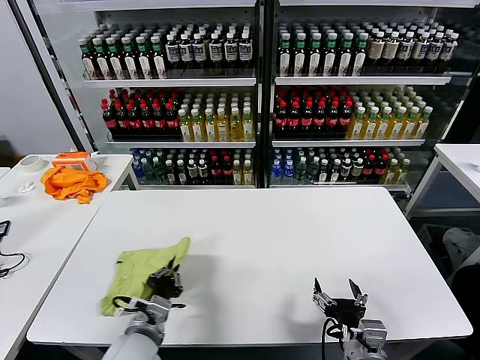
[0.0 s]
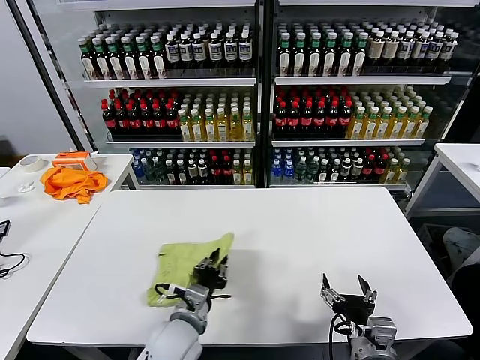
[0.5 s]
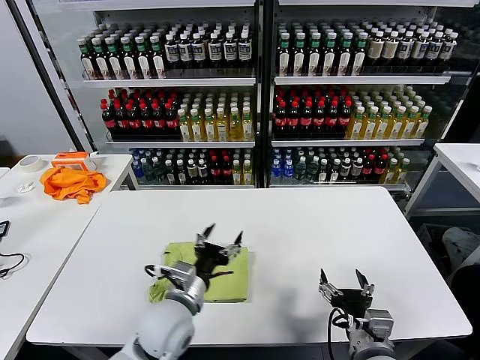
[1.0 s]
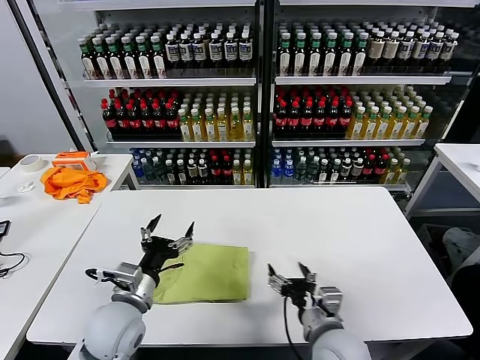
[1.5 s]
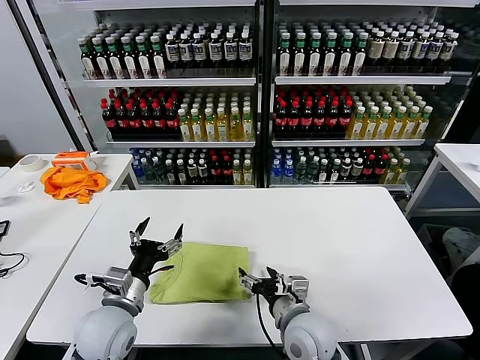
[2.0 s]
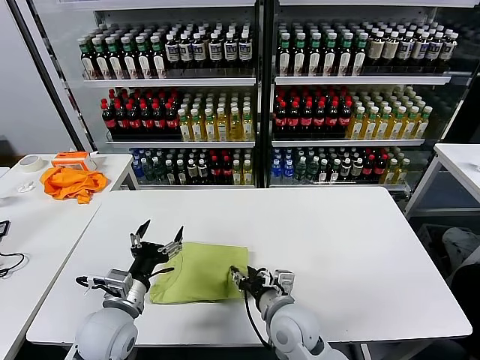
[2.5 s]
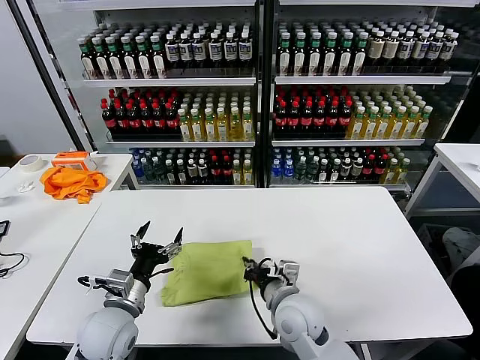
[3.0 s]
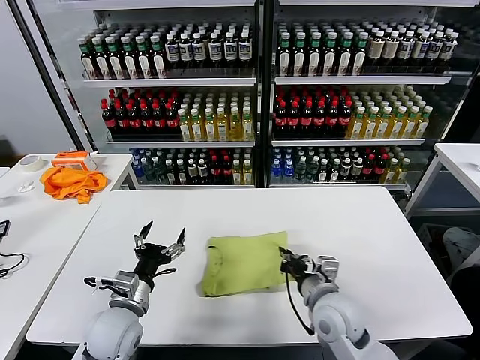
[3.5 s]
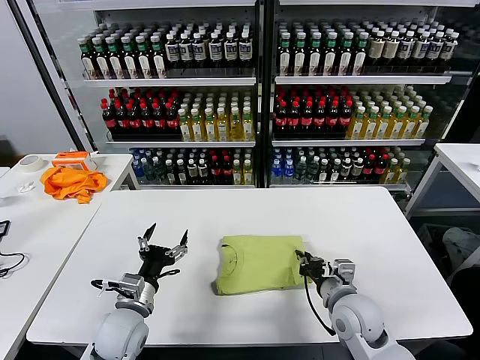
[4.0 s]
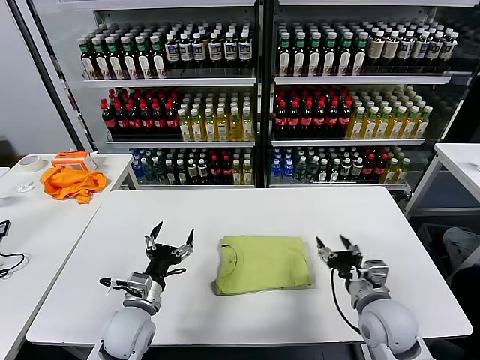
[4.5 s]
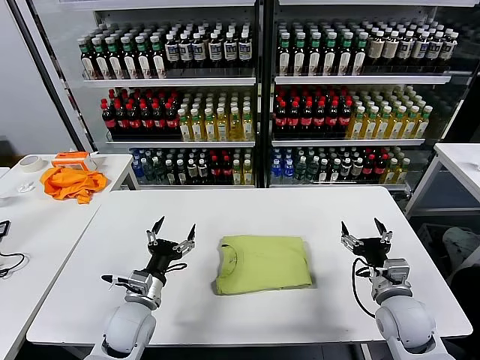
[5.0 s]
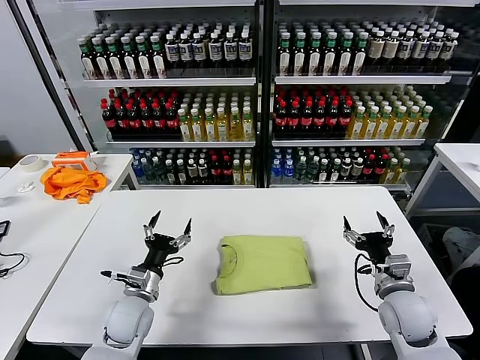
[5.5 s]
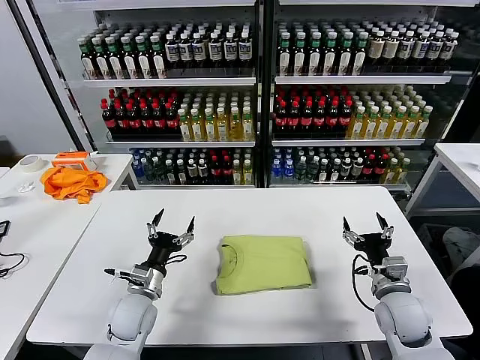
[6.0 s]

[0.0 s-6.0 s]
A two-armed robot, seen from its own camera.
Task of the whole recording: fold and organize the clothes.
Step, 1.0 to 4.0 s: Drag the clothes to the center of the table.
0.0 to 2.0 s: The left gripper moves about 10 cm to the right and comes back, and opens up; the right gripper shifts about 15 cm forward and to the left.
2.0 to 4.0 s: The left gripper moves approximately 5 cm. The right gripper travels to the right by some 10 cm, and closes its fingers.
4.0 to 6.0 s: The right gripper heads to the right, covering about 10 cm, and opens up. The left gripper moves roughly 5 cm.

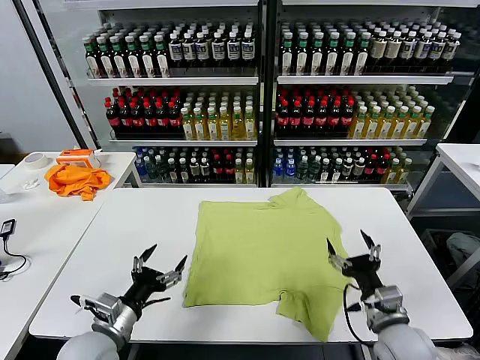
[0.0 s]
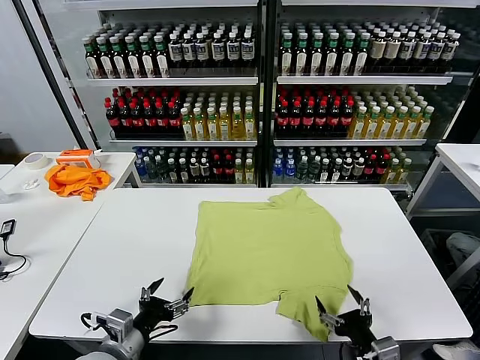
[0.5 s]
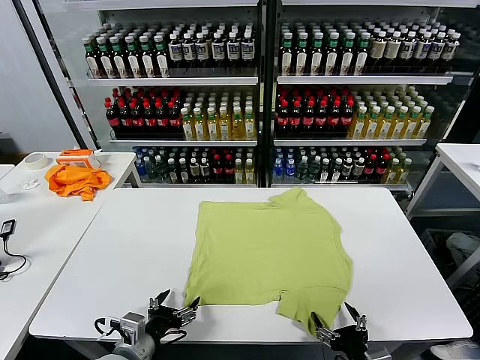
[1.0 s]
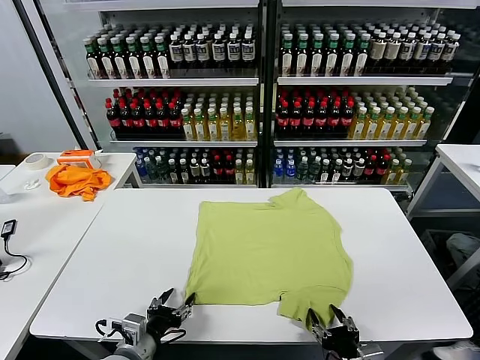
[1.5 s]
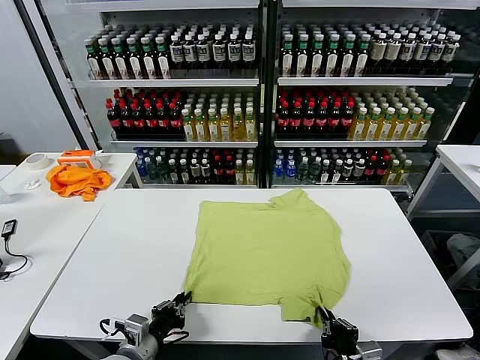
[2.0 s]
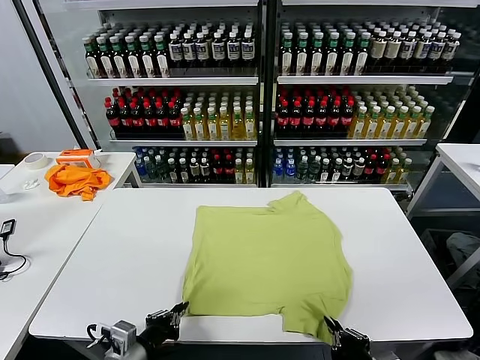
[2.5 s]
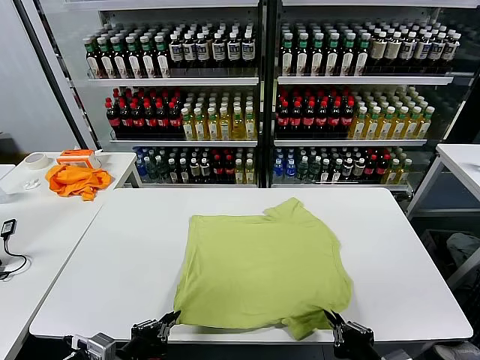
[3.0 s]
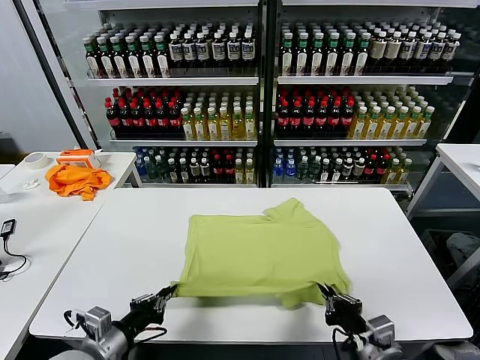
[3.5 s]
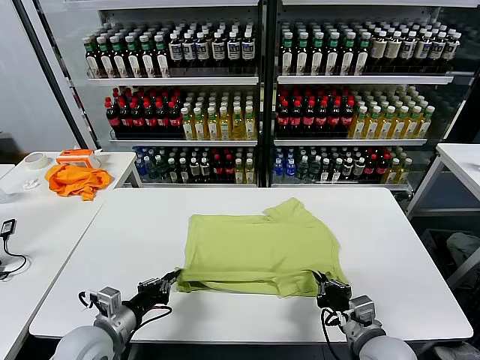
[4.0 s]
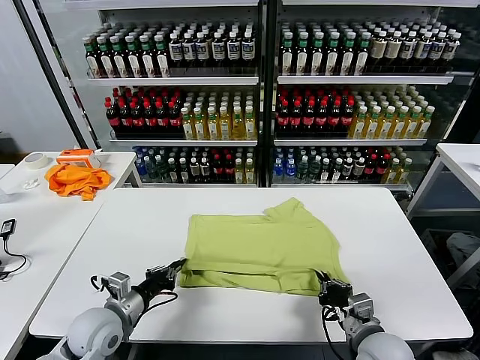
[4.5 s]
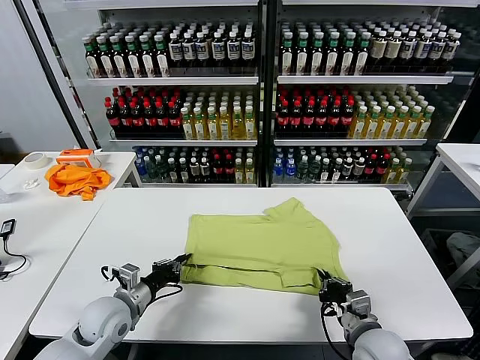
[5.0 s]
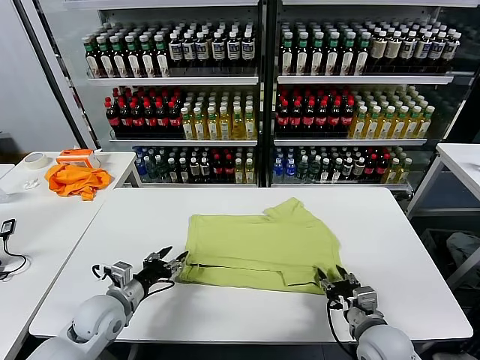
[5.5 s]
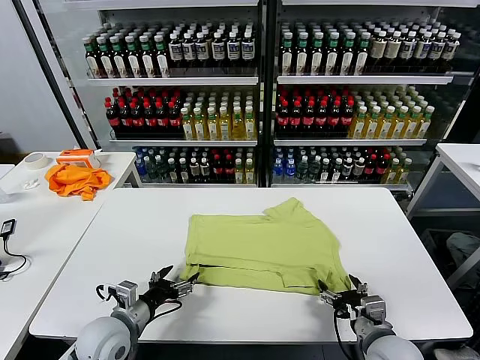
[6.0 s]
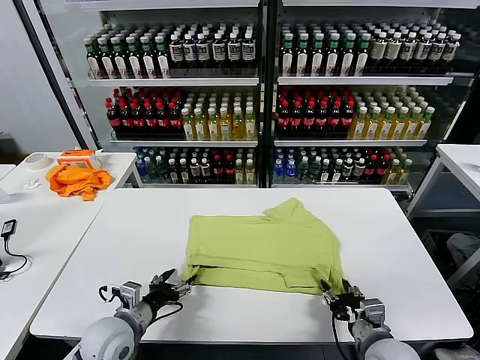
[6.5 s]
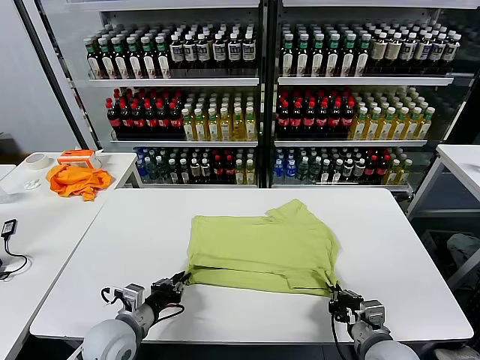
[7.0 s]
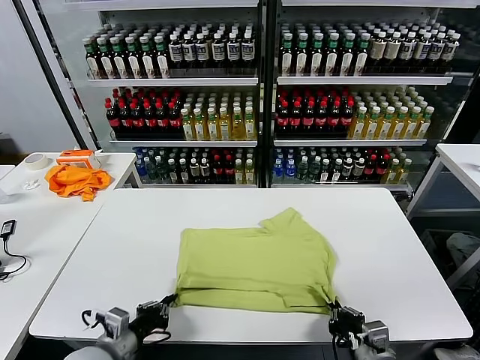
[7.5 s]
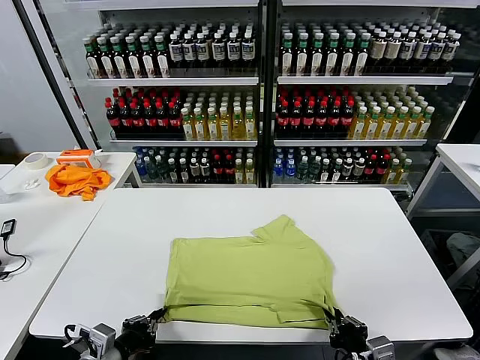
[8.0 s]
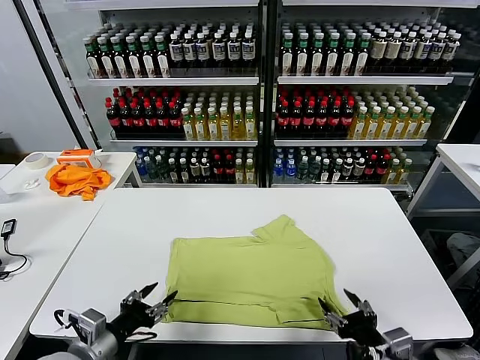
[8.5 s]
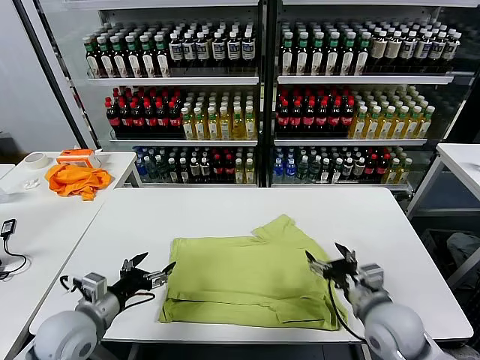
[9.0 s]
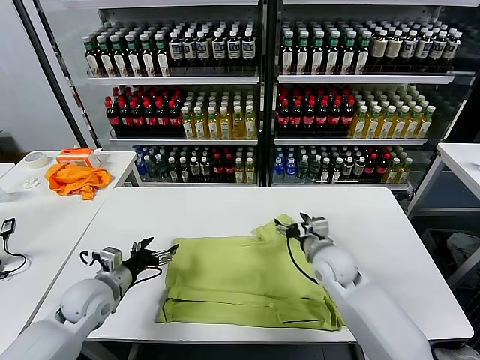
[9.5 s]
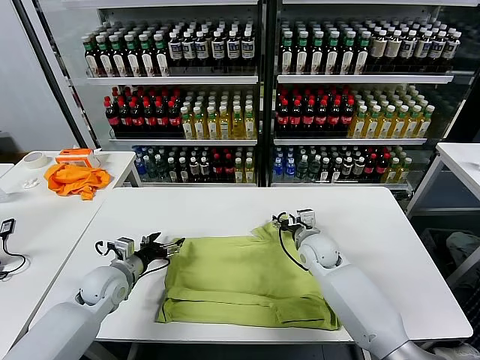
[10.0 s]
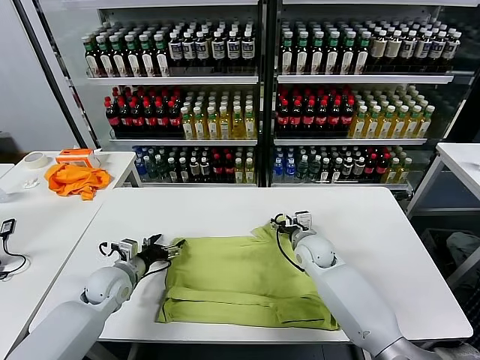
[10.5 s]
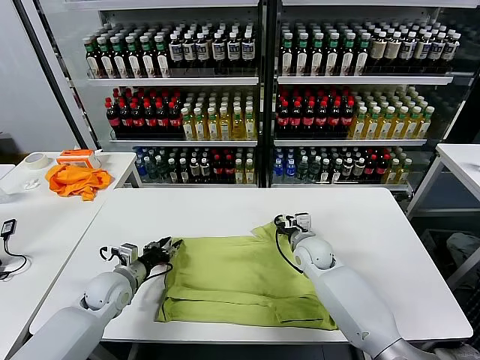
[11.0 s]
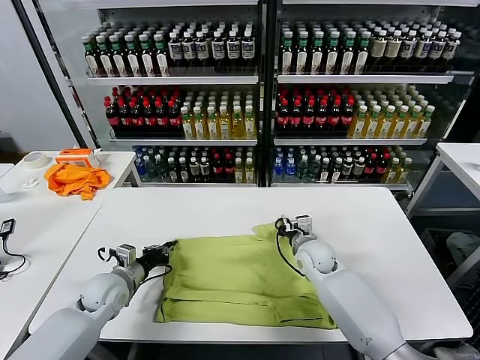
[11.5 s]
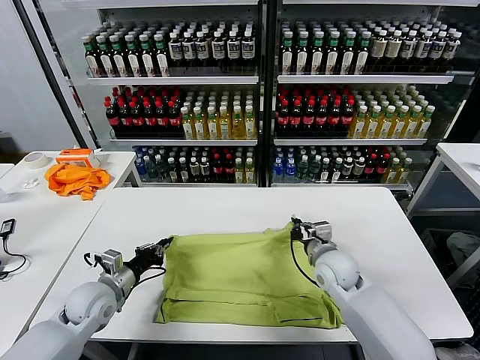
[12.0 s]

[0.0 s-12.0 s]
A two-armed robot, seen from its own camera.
Task of the whole recording: fold and organize the clothes.
Step, 0.0 to 2.0 s: use both grippers simultaneously to clamp the lower edge of the clothing fabric.
Step, 2.5 to 5.5 s: use both grippers to drag the lower edge of the fabric forward and fold it over the upper edge.
Step, 6.0 to 8.0 s: Drag the clothes downward with both gripper.
Step, 8.5 to 11.0 s: use both grippers simultaneously to clamp the upper edge of the clothing fabric.
2.0 to 4.0 s: The right gripper travels forward by approximately 10 cm. The left gripper heads to the left and forward, covering approximately 5 cm.
4.0 to 6.0 s: The right gripper opens up. The left gripper opens.
6.0 to 8.0 s: The grippers both shift backward by approximately 10 cm. The left gripper closes. The right gripper closes its fingers.
8.0 to 10.0 s: The right gripper moves forward, approximately 35 cm, and opens. Meanwhile the left gripper goes about 20 cm forward, and opens up.
10.0 to 12.0 s: The left gripper travels backward by roughly 5 cm, and closes, while the right gripper moves backward, approximately 10 cm, and closes its fingers.

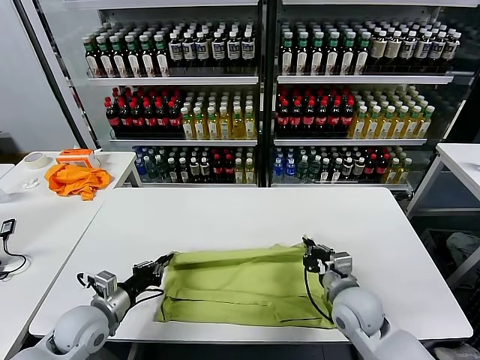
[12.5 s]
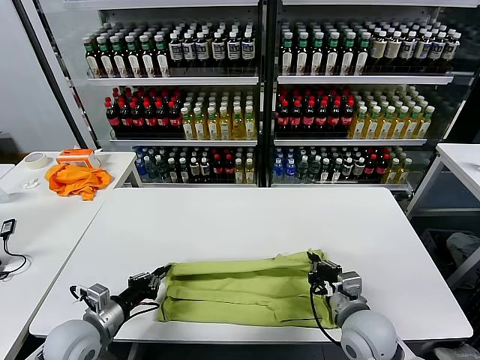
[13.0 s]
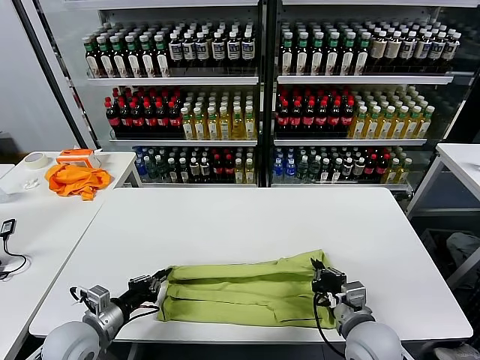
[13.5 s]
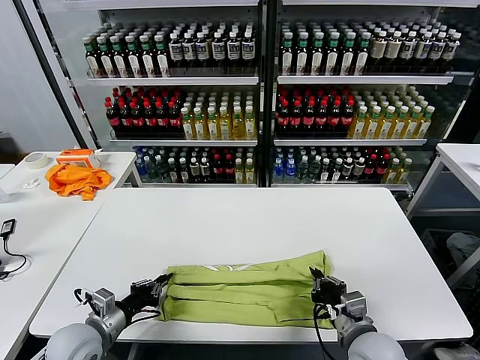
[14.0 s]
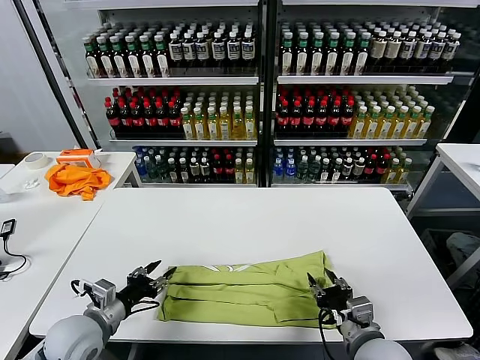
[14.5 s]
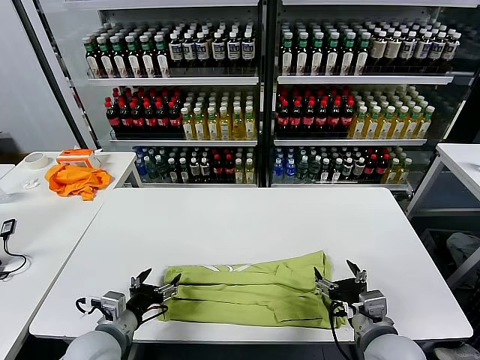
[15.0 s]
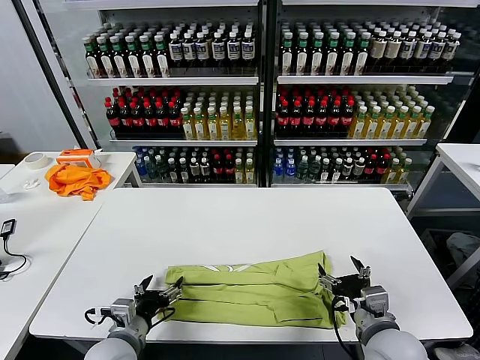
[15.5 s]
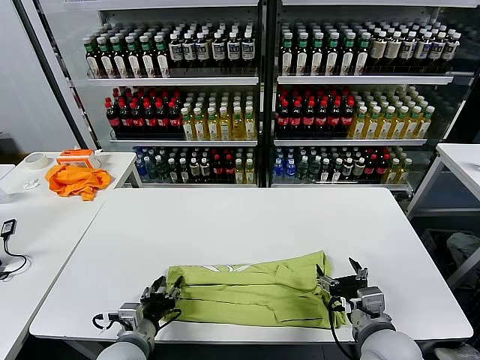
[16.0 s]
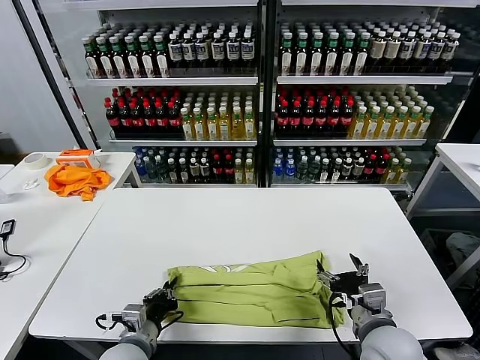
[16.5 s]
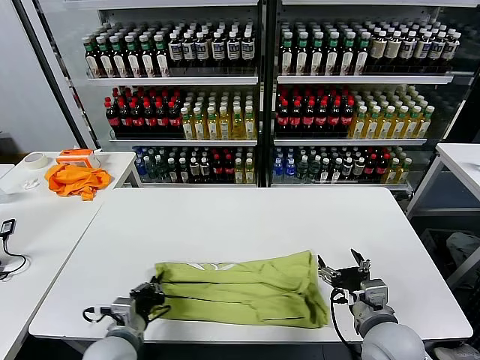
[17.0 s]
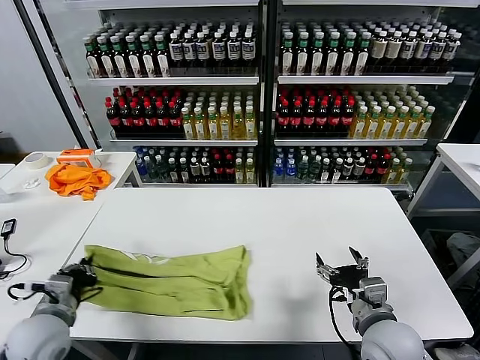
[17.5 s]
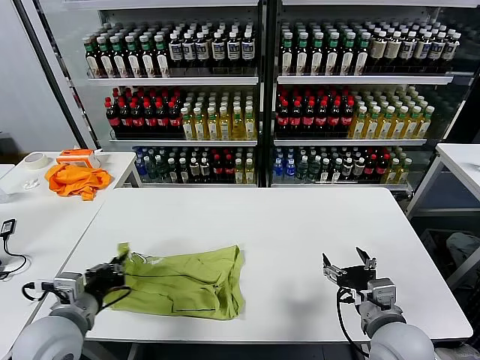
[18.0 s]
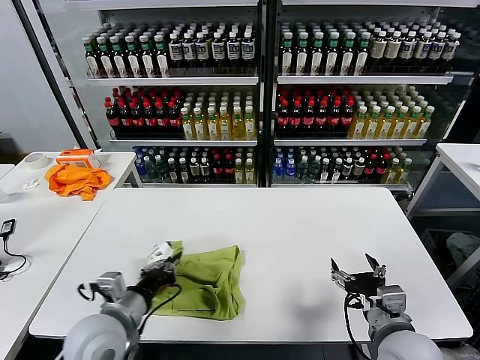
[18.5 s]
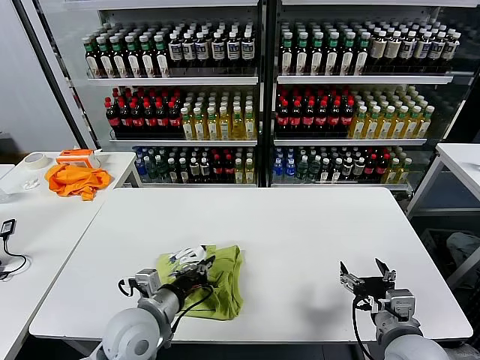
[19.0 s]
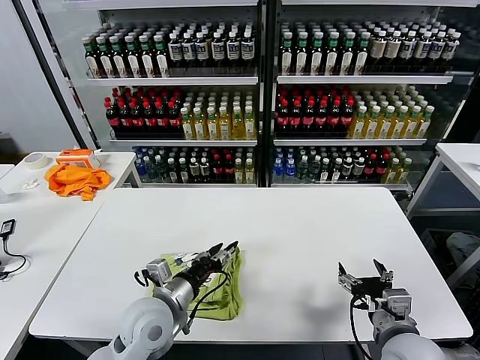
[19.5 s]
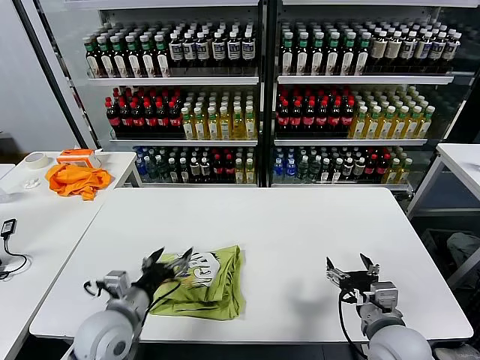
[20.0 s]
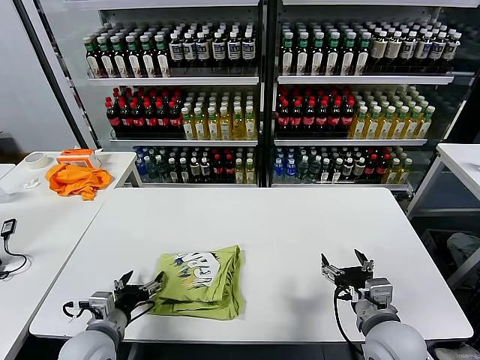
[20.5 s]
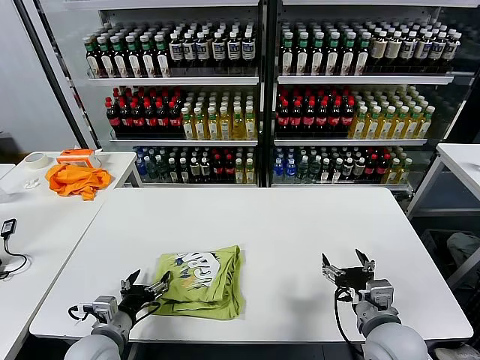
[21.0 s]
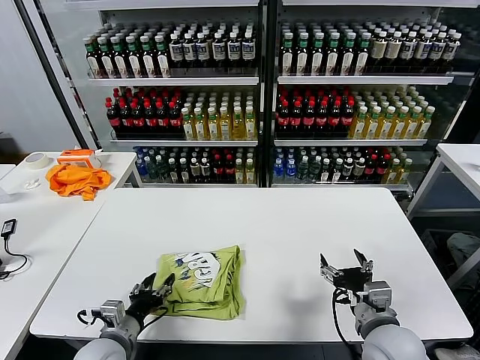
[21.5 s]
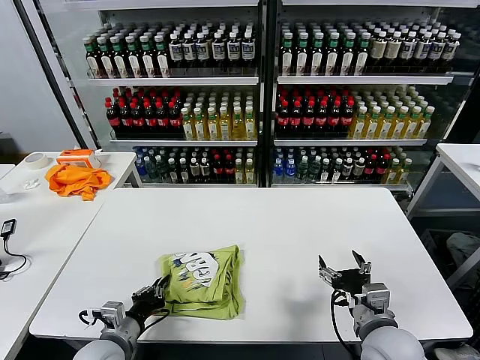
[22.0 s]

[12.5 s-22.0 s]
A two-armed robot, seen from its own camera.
Task of the whole recording: fold and organize the clothes.
Step, 12.5 to 14.0 s: use both grippers to drag the upper edge of the fabric backward and fold it over the lower edge.
Step, 15.0 to 16.5 s: use the left gripper to clamp the left edge of the fabric.
Step, 17.0 to 19.0 s: use the left gripper to drag the left edge of the fabric to the left and folds it over the right edge.
12.5 to 14.5 s: The left gripper opens its fingers. Meanwhile the right gripper moves backward, some 10 cm, and opens.
14.5 to 16.5 s: The left gripper goes about 10 cm to the right, and closes its fingers. The right gripper opens its fingers.
16.5 to 18.0 s: The left gripper is displaced upward and to the left by approximately 15 cm.
18.0 to 20.0 s: The left gripper heads to the right and downward, covering roughly 10 cm, and opens up.
20.0 to 22.0 s: The left gripper shifts about 10 cm downward, and closes.
